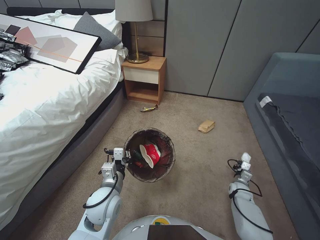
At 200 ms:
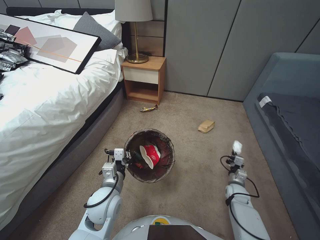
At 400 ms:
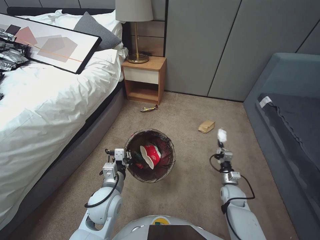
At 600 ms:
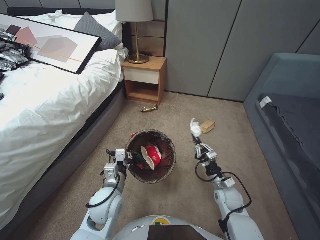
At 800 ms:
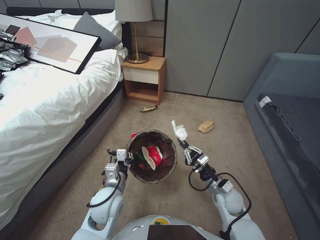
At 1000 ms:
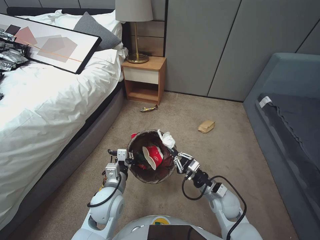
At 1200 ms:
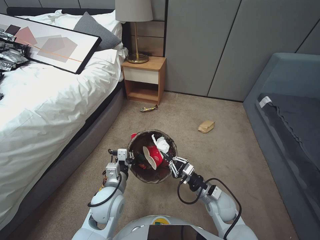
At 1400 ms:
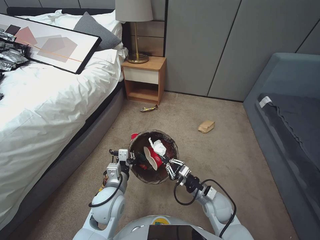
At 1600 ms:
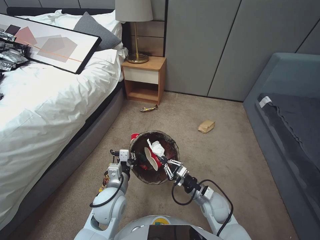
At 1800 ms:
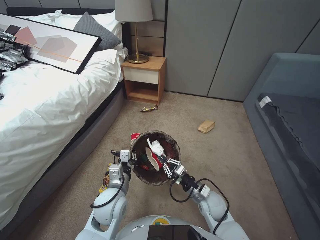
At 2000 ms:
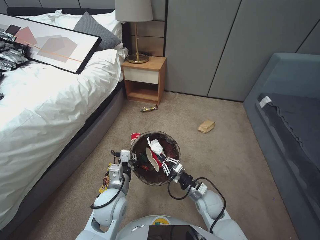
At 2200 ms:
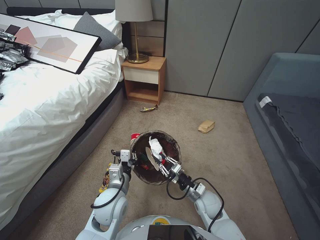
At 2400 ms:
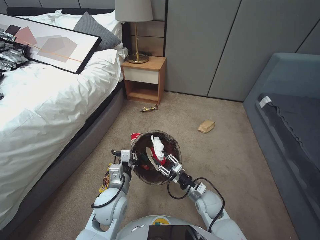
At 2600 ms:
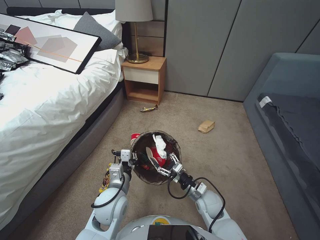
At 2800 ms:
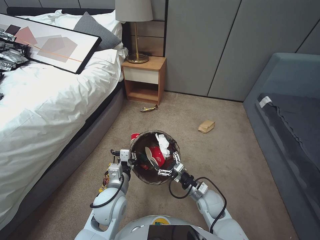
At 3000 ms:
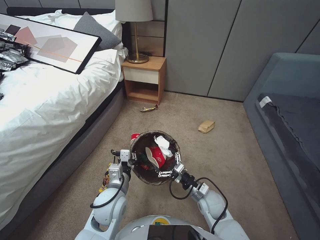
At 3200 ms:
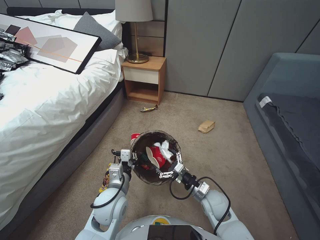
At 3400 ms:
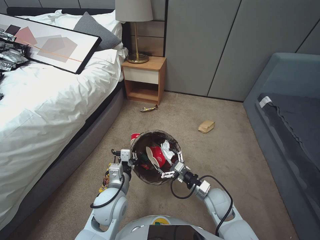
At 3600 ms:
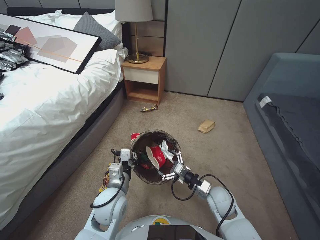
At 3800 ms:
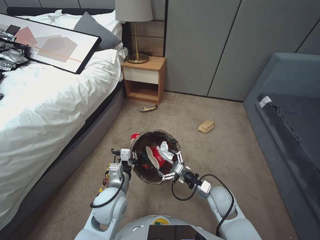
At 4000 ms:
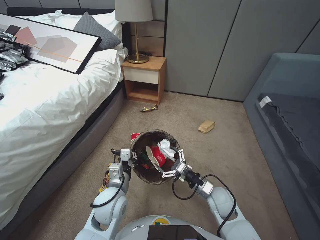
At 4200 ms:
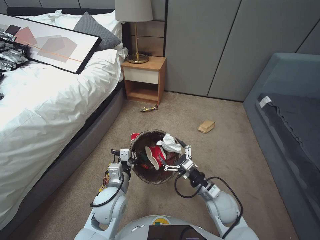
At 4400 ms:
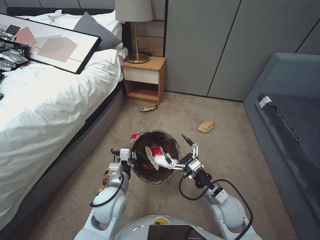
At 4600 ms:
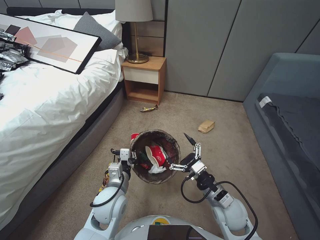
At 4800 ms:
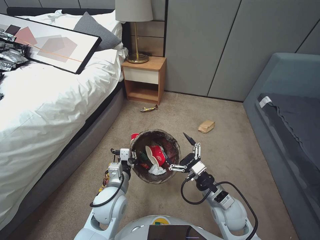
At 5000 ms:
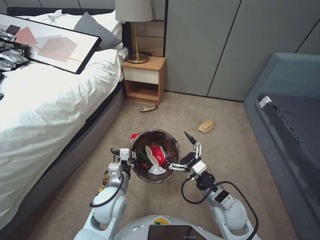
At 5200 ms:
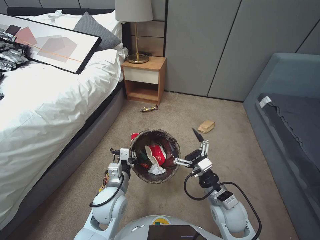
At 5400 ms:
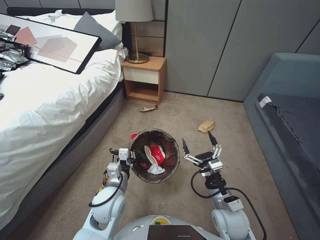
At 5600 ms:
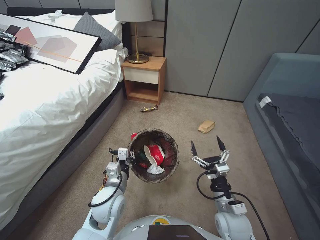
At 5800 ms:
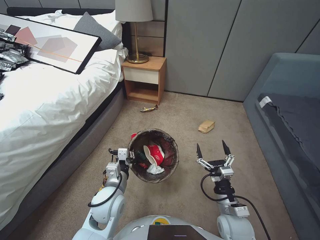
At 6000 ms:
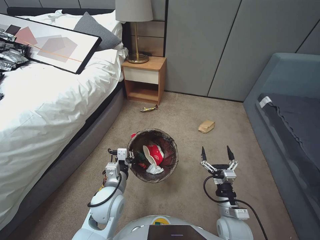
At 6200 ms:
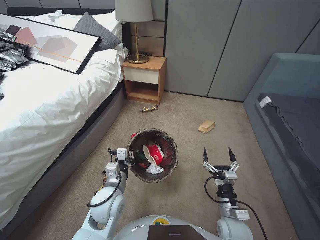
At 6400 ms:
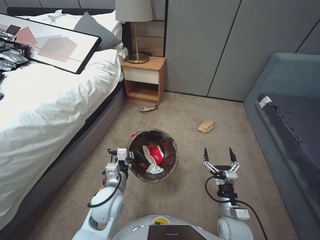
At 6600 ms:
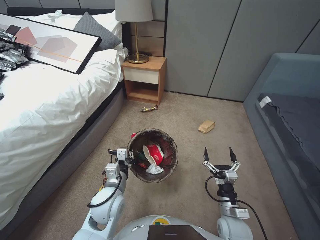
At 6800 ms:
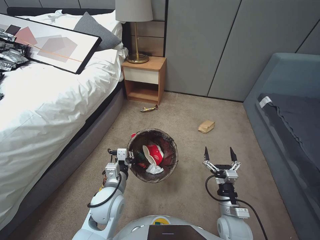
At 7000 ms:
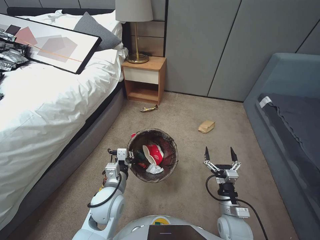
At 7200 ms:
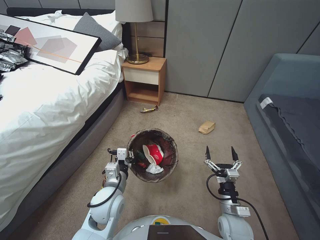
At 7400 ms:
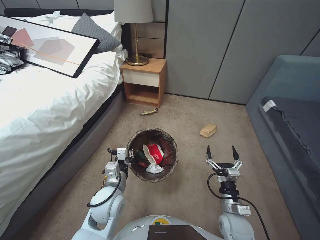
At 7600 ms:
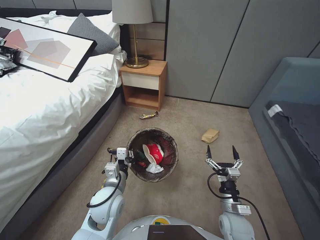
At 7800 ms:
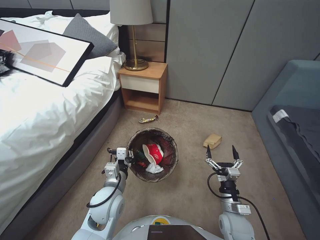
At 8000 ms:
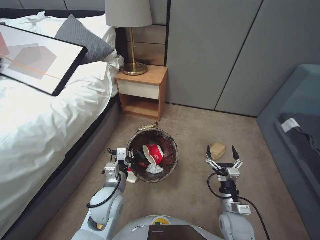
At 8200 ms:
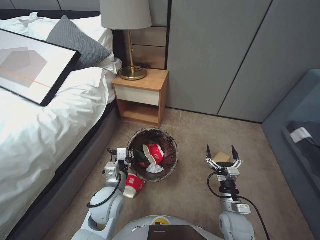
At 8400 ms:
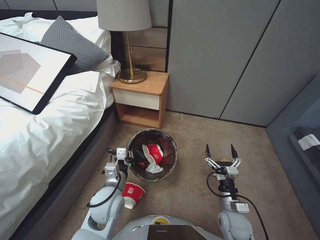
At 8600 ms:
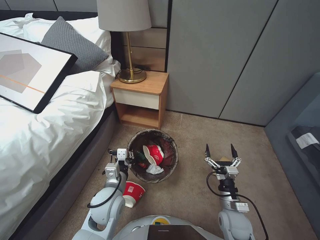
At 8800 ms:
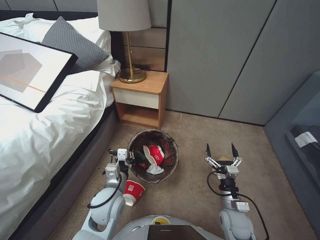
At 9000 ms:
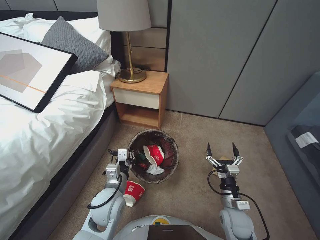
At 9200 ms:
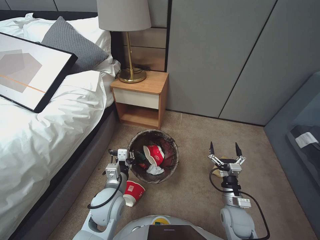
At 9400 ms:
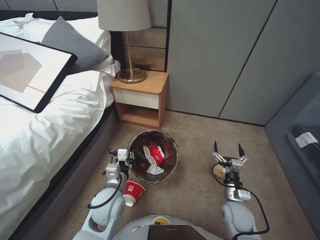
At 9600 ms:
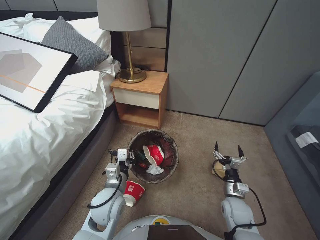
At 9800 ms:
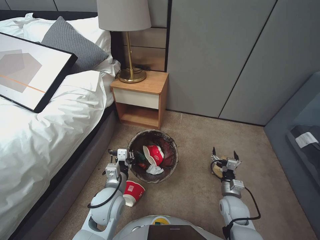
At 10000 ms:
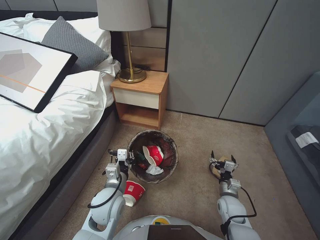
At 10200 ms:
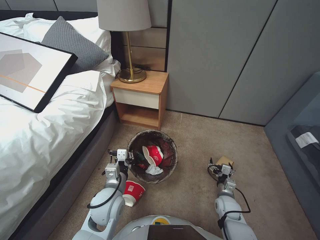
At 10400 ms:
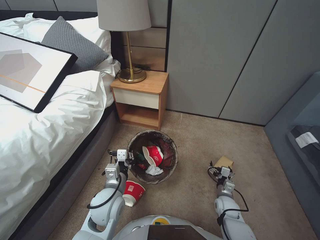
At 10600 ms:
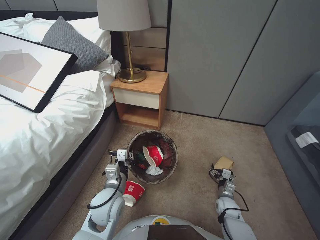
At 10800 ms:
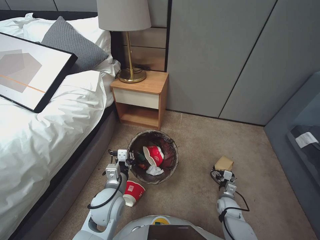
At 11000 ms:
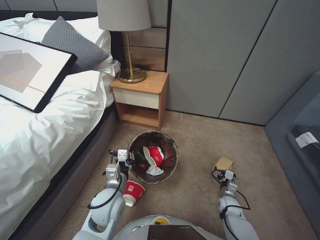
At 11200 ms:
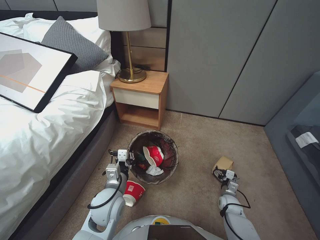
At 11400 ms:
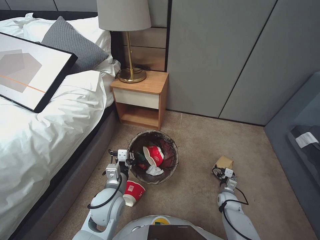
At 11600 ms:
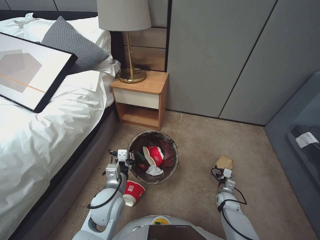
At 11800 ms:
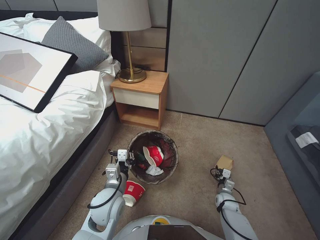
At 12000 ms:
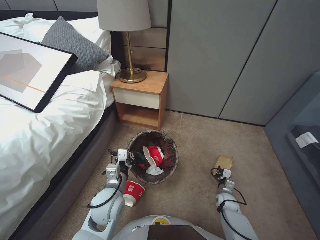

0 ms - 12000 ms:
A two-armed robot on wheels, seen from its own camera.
Task of the whole recording: Pick up the trash bin, then pick up the garbage from the floor and place it into the trash bin.
0 ms - 1600 ms: The right gripper moves to the left and upward, some 25 cm.
1600 ms - 3000 ms: The right gripper opens.
3000 ms - 4400 ms: The right gripper heads upward, covering some 5 cm.
6000 ms - 7600 ms: The right gripper is displaced downward by roughly 5 cm.
9000 ms - 10400 ms: The right gripper heads downward and forward, covering some 10 cm.
10400 ms - 12000 ms: The right gripper heads downward, covering some 5 cm, and closes its fingers.

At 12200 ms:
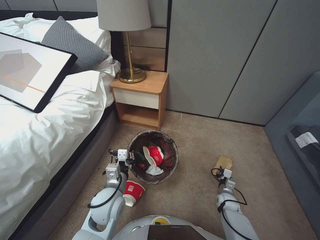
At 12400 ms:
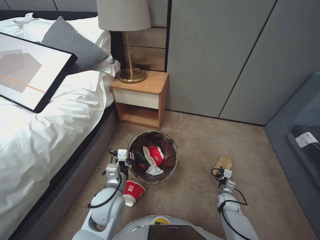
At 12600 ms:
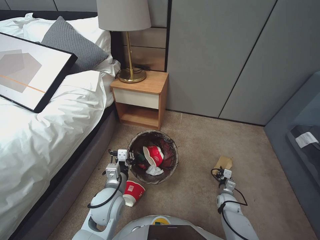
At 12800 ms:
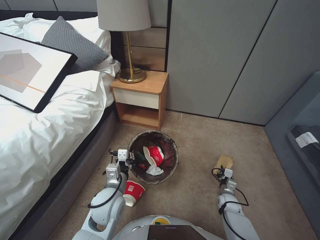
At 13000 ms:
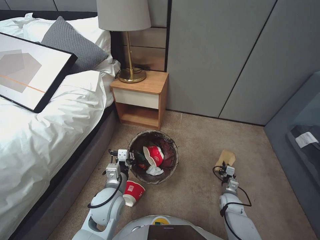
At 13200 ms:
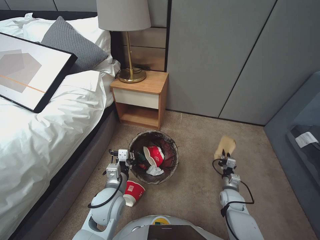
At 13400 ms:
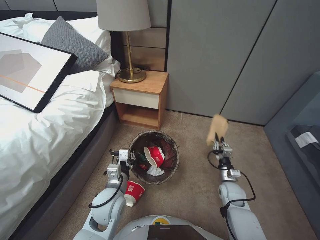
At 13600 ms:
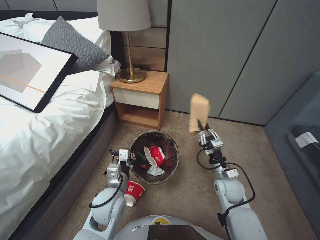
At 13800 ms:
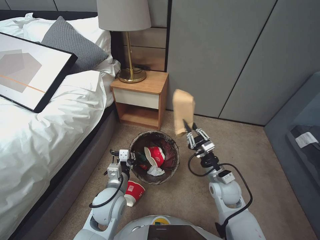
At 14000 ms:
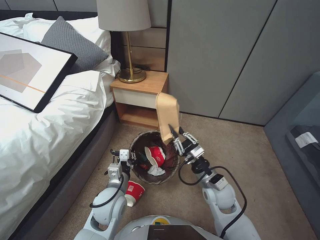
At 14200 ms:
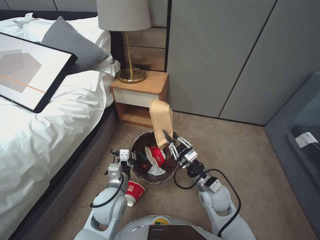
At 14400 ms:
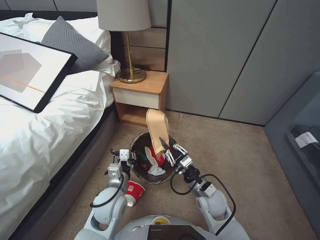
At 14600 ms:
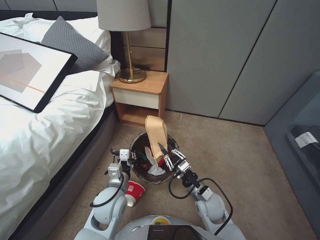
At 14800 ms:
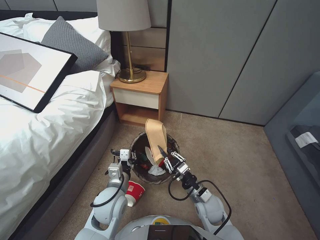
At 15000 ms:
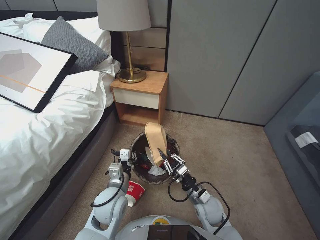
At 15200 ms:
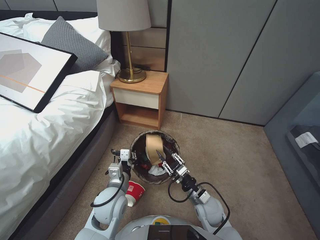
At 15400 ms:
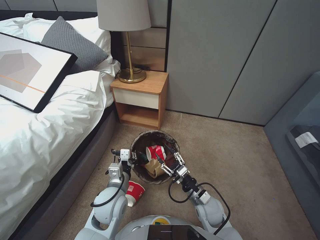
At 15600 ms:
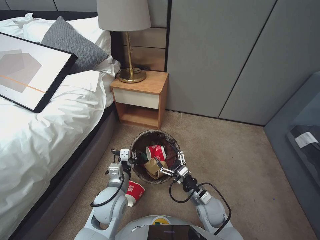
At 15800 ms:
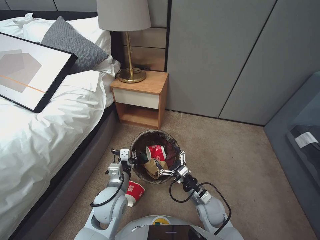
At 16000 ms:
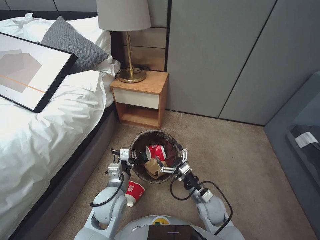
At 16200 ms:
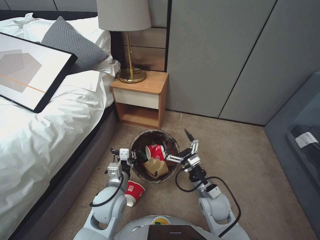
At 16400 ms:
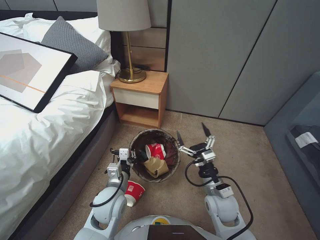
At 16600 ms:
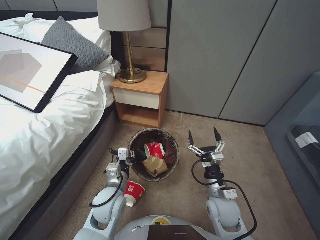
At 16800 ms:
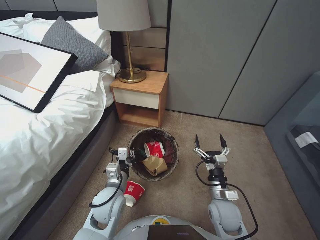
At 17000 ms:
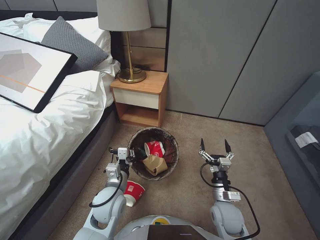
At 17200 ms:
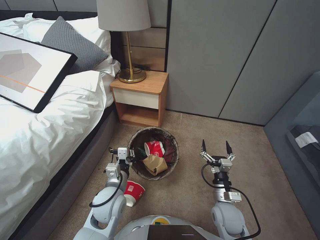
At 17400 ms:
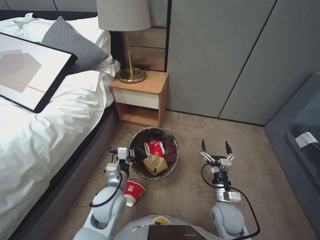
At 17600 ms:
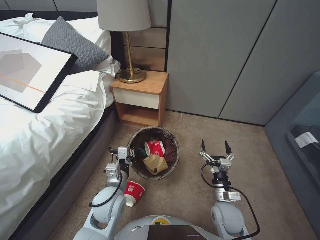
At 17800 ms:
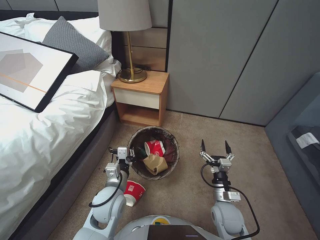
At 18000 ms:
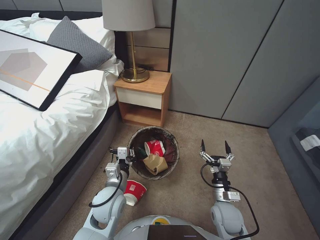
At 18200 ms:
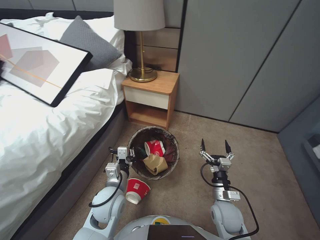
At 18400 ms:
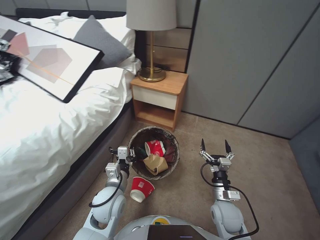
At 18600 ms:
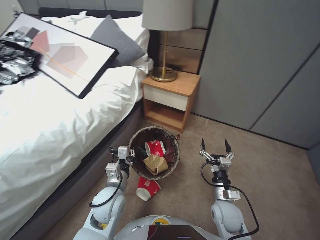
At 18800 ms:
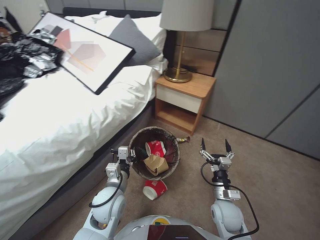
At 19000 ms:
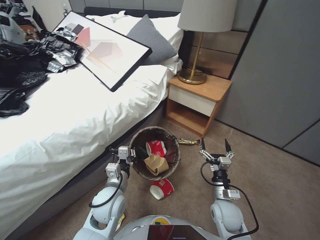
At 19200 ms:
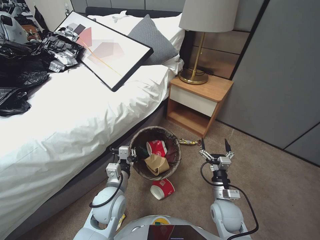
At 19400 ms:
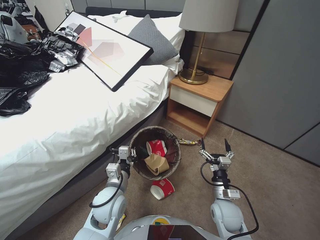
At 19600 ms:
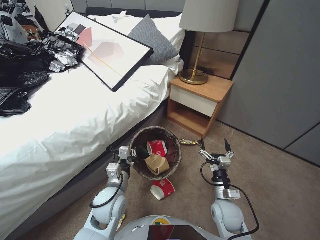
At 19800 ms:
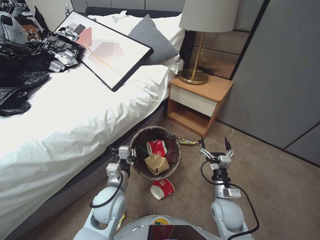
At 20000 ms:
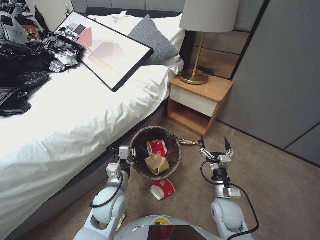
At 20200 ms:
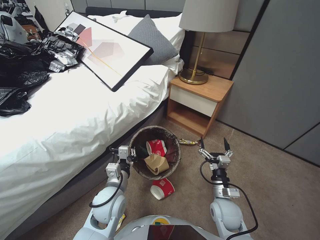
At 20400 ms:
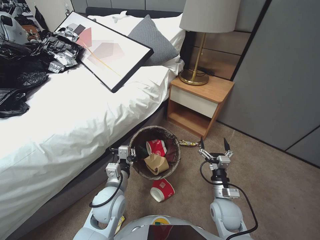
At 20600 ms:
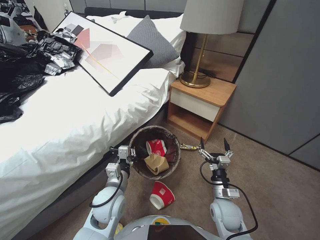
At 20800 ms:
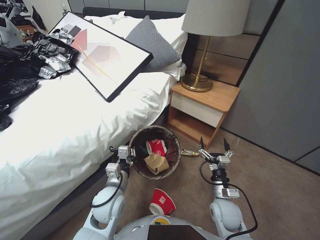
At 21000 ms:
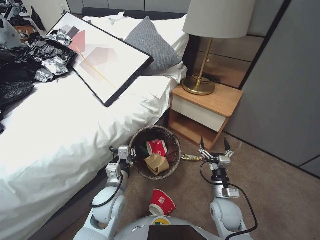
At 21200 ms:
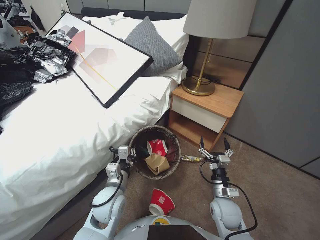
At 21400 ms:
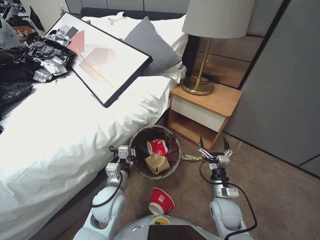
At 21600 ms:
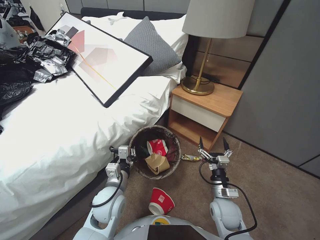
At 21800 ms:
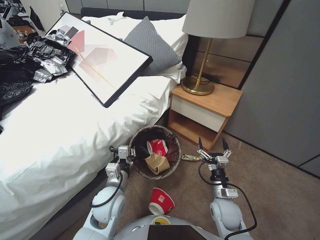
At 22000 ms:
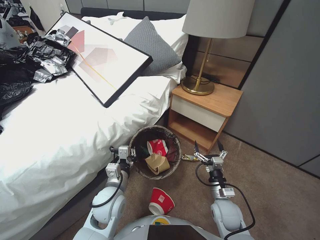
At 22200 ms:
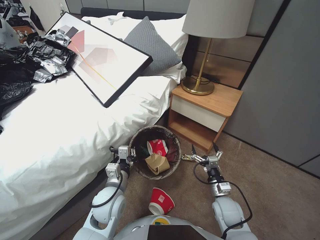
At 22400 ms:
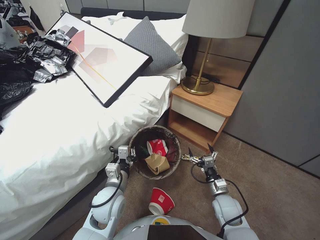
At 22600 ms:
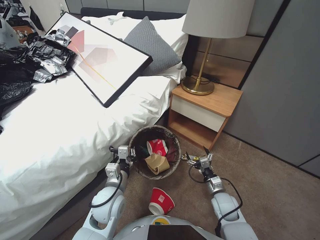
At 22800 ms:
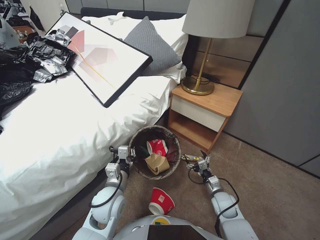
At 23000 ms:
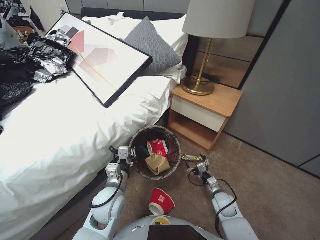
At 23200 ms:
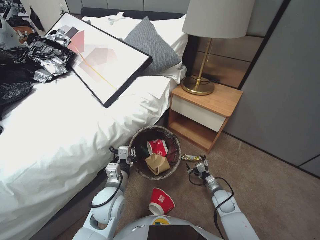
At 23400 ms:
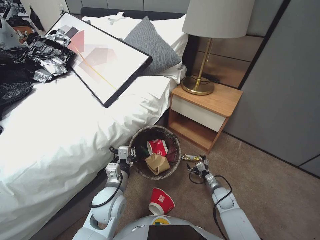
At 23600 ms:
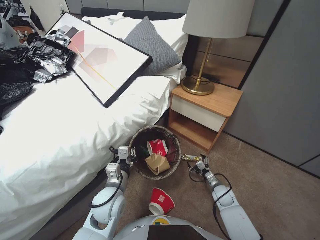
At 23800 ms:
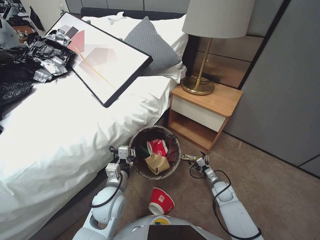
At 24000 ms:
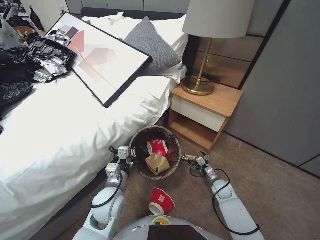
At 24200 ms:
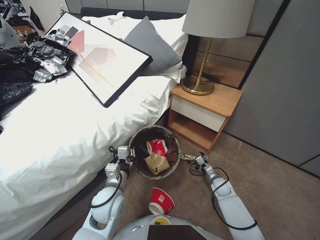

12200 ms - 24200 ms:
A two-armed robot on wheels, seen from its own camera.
Task of the whole recording: Pick up the trash bin, then pick up the garbage from the floor and place it into the trash bin.
12200 ms - 13800 ms: The right gripper goes about 25 cm upward and to the left.
13800 ms - 15200 ms: The right gripper heads to the left, downward and backward, covering approximately 10 cm.
15200 ms - 16600 ms: The right gripper goes roughly 5 cm upward, and opens.
16600 ms - 18200 ms: The right gripper is displaced downward by approximately 5 cm.
22600 ms - 24200 ms: The right gripper travels downward, forward and to the right by approximately 10 cm.
